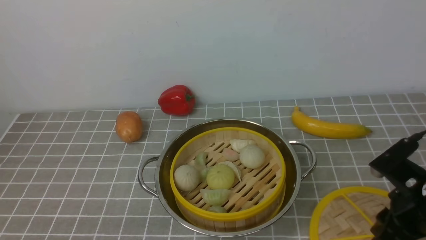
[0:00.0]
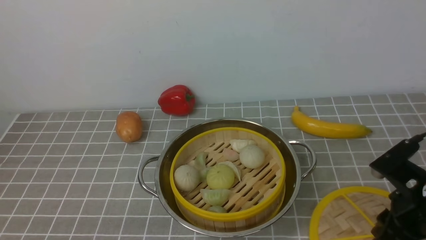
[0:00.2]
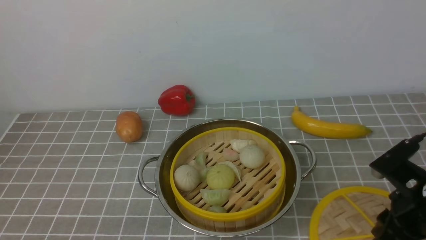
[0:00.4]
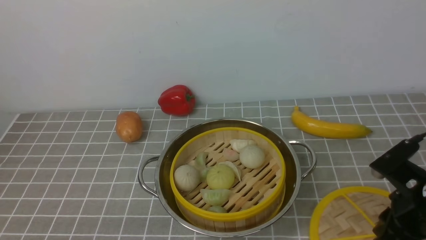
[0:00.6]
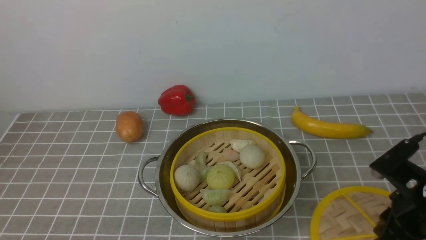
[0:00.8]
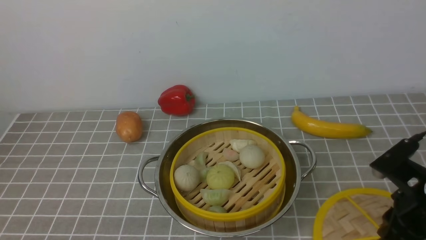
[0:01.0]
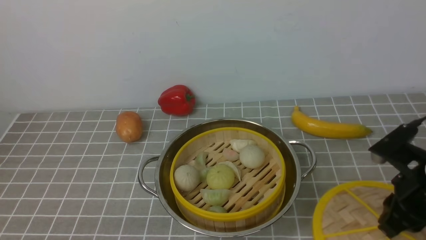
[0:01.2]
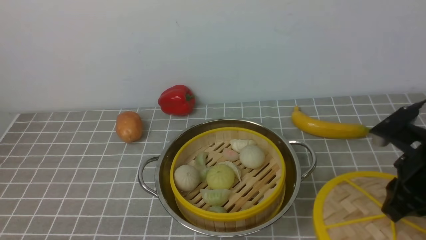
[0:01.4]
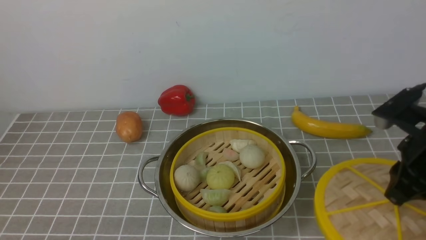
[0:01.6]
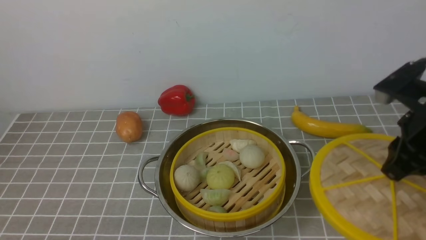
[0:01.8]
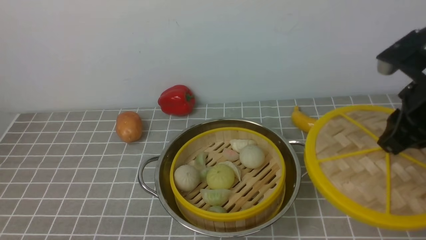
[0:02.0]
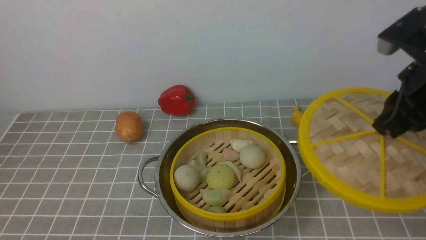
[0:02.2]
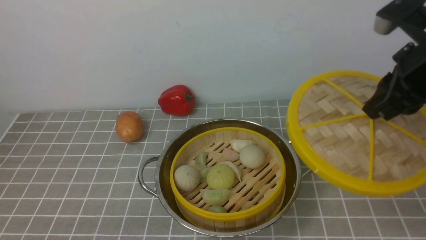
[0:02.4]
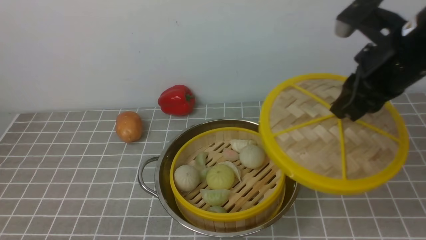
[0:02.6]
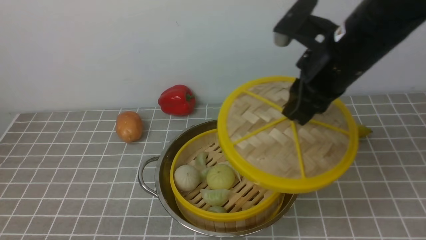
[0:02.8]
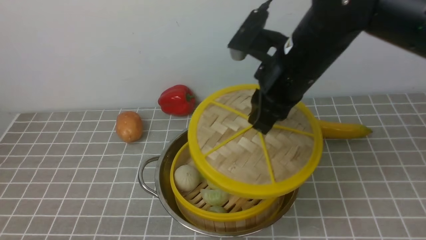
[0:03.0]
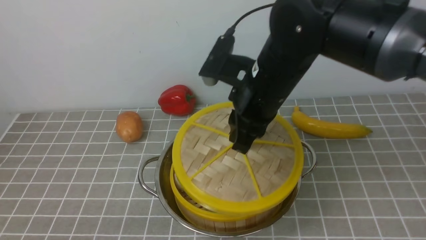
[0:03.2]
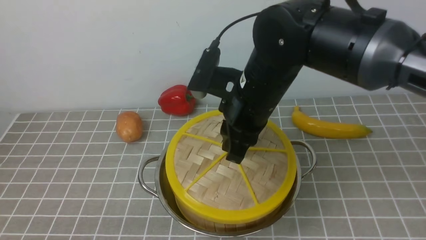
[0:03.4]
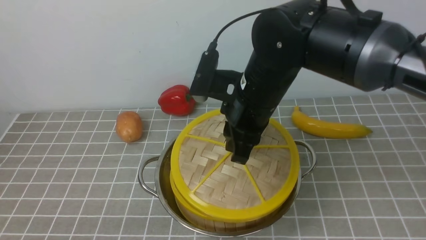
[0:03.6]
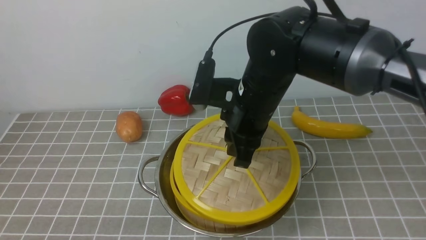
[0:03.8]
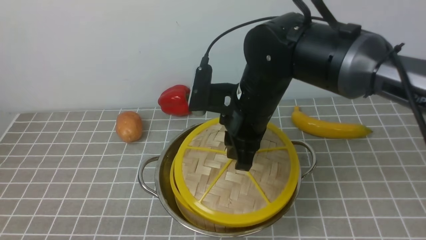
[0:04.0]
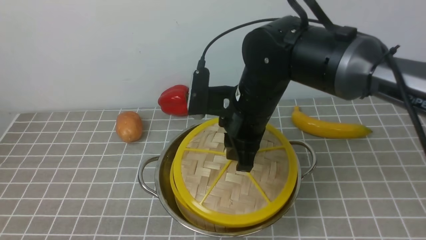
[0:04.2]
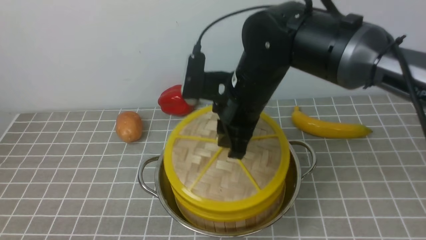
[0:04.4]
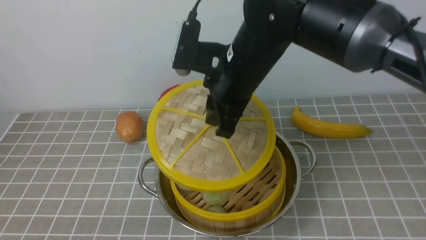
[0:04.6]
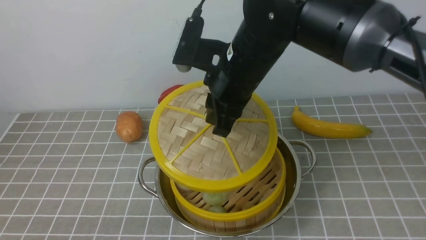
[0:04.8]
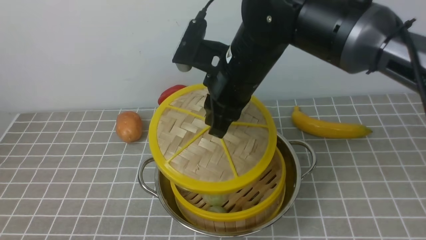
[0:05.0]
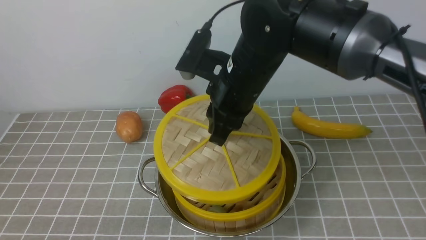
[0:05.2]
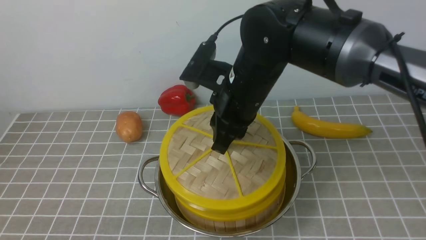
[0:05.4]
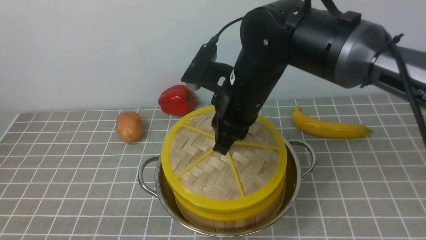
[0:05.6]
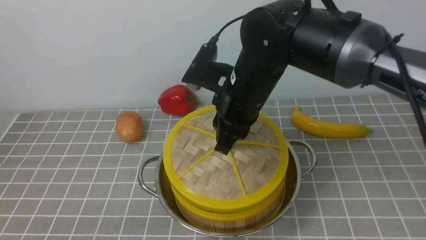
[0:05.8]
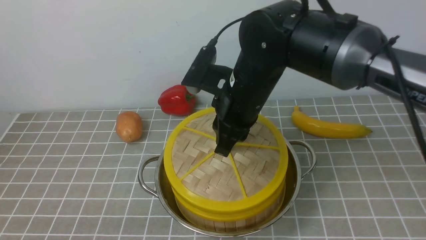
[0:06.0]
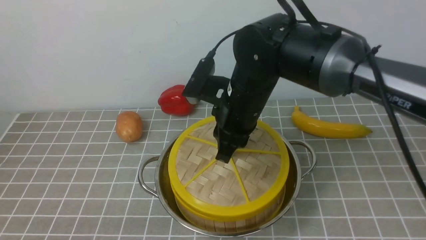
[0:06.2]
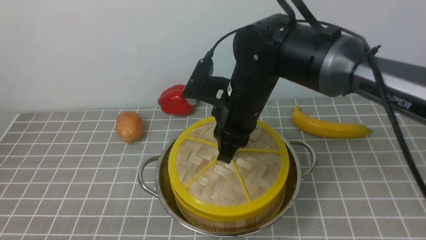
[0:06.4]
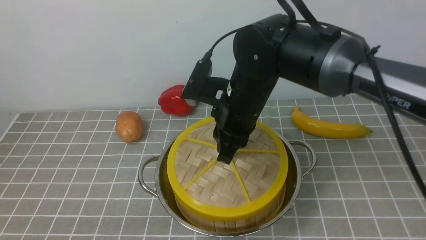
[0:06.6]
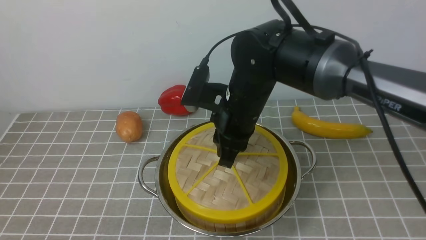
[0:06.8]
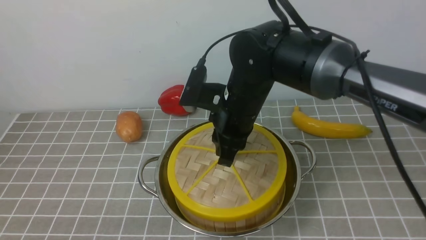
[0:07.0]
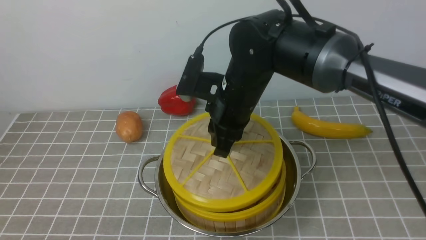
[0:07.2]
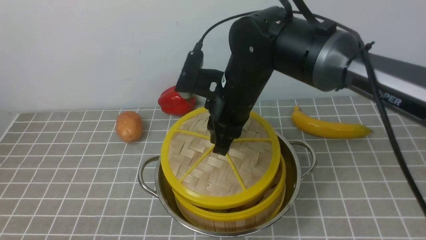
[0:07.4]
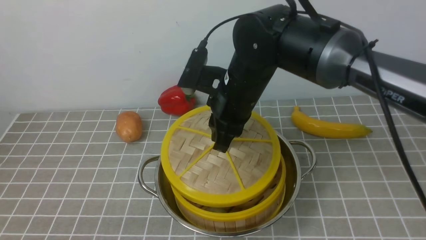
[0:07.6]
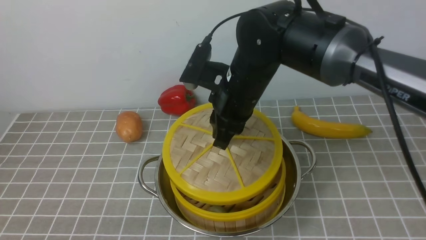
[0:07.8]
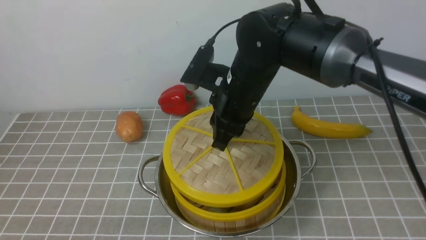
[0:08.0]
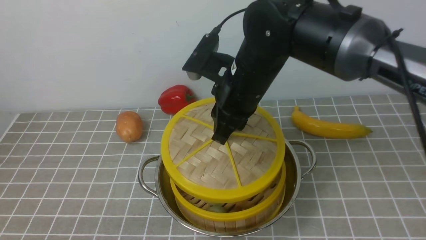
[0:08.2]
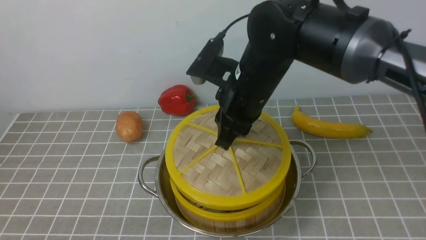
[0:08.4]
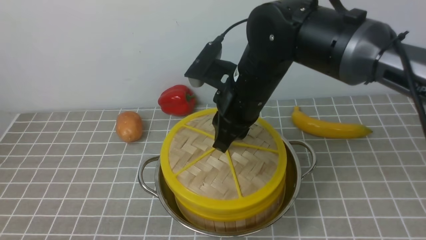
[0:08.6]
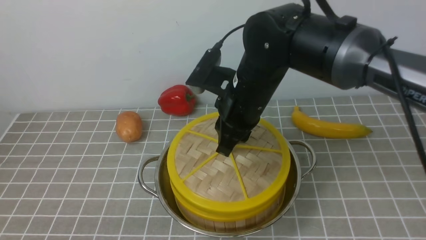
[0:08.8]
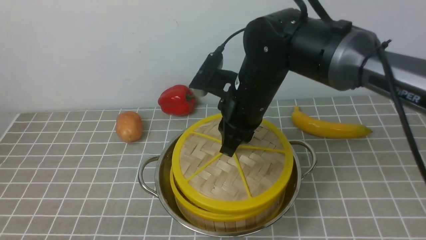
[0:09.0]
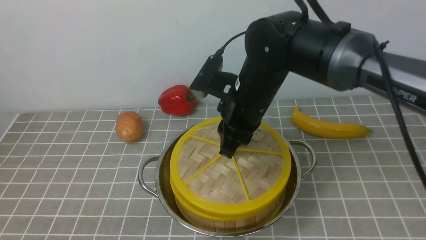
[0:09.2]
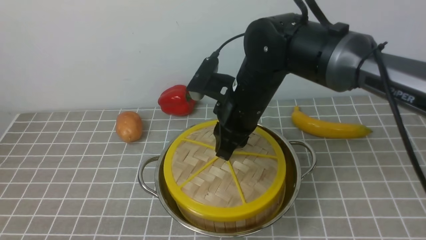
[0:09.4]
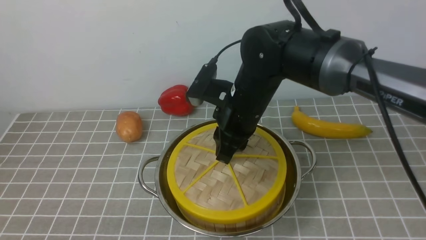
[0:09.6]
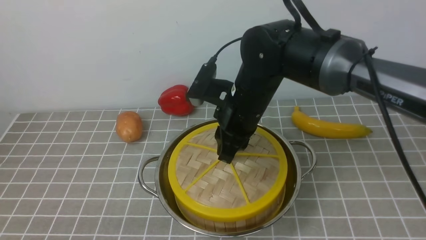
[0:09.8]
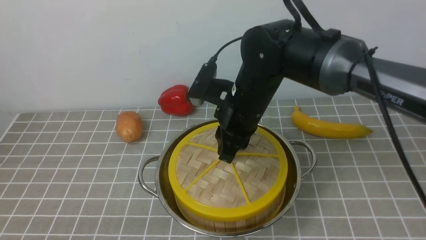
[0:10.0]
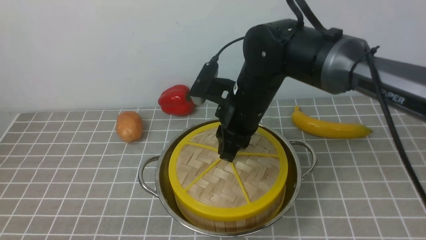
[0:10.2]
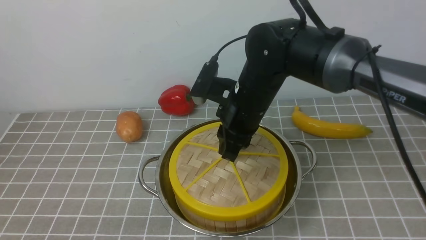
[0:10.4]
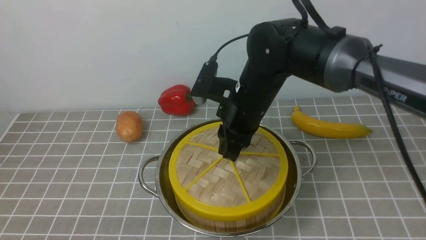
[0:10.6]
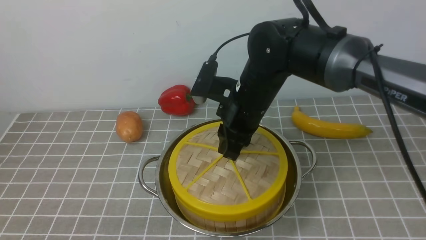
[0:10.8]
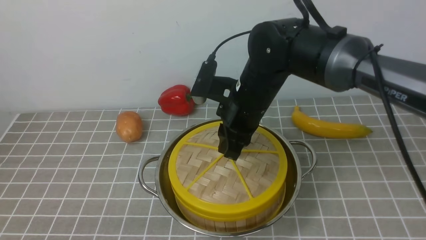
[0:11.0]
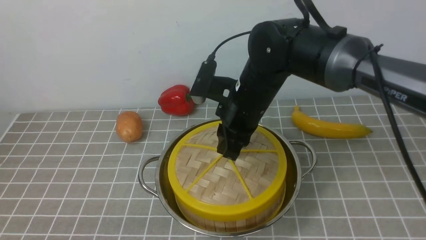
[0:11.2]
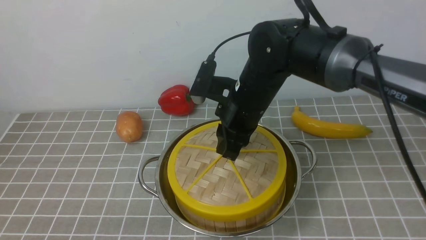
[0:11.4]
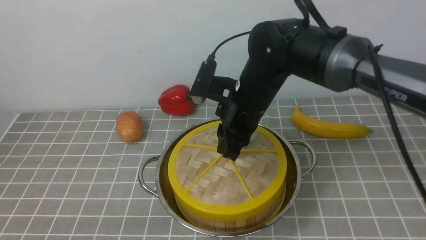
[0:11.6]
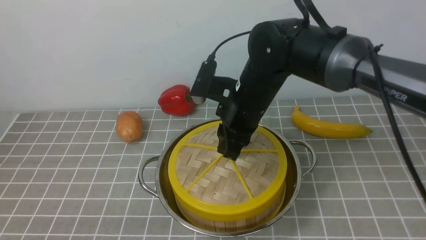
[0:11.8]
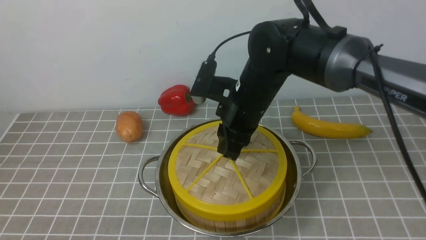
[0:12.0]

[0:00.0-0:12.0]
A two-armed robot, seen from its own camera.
Task of the whole recording: place the steamer in the pot on the grey tablecloth, and put the lid on the steamer.
0:00.0 to 0:01.6: The right gripper moves upward, roughly 10 cm, and closes.
0:01.6 to 0:03.0: The right gripper travels to the left and forward by approximately 20 cm.
0:03.0 to 0:04.4: The right gripper is displaced to the left by some 5 cm.
0:04.4 to 0:10.4: There are only small adjustments of the grippers.
0:10.4 to 0:12.0: Both grippers stay put.

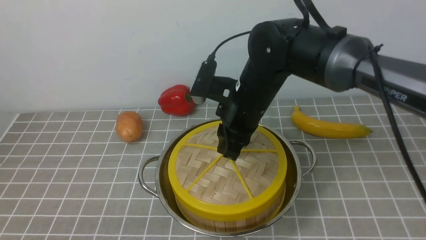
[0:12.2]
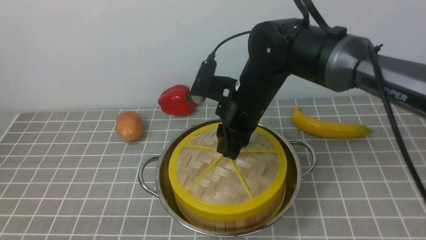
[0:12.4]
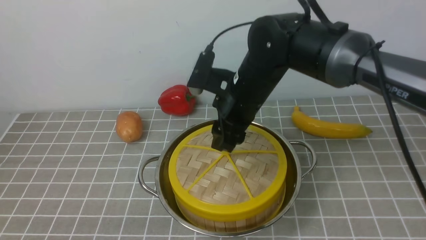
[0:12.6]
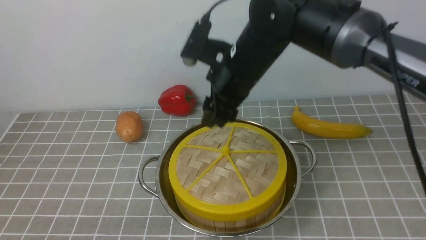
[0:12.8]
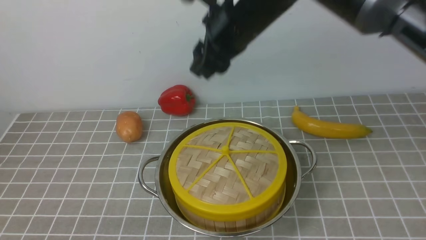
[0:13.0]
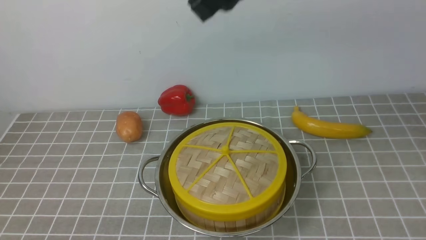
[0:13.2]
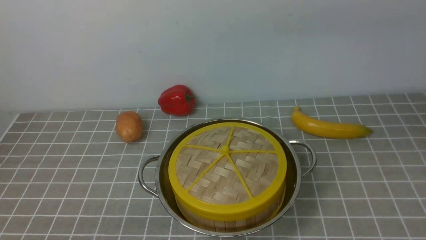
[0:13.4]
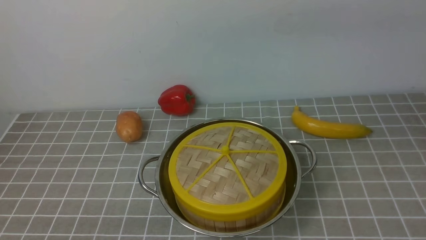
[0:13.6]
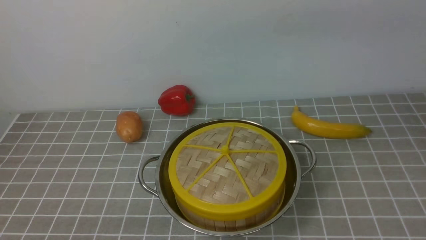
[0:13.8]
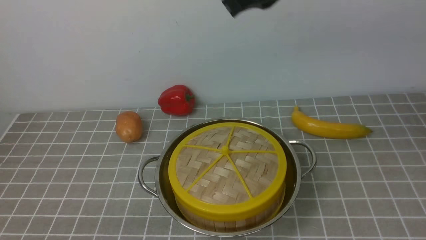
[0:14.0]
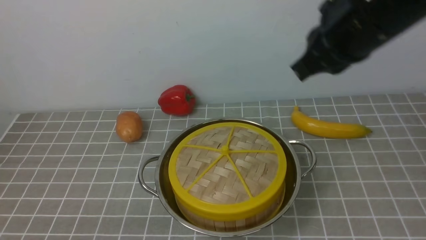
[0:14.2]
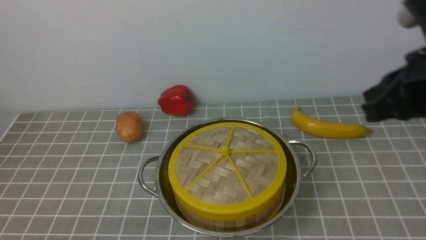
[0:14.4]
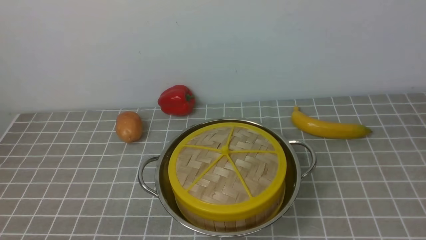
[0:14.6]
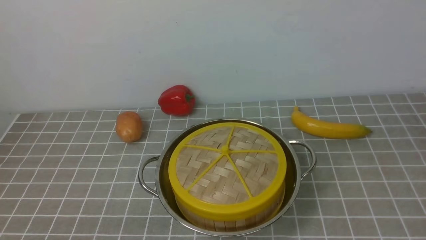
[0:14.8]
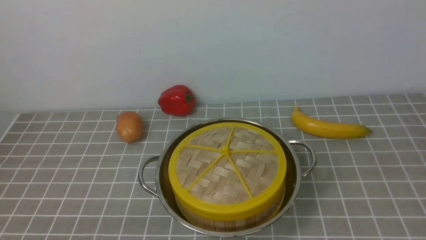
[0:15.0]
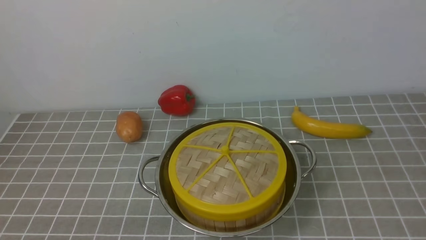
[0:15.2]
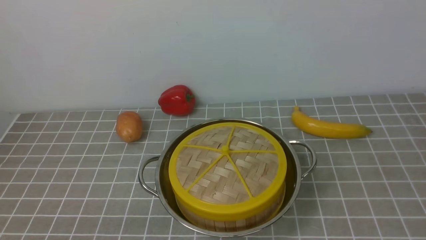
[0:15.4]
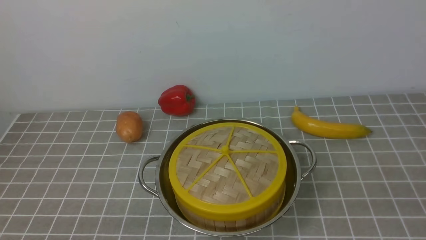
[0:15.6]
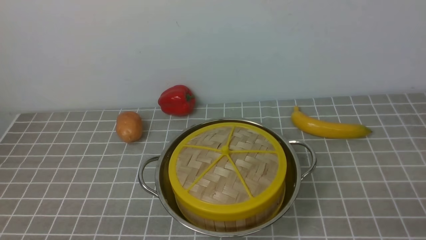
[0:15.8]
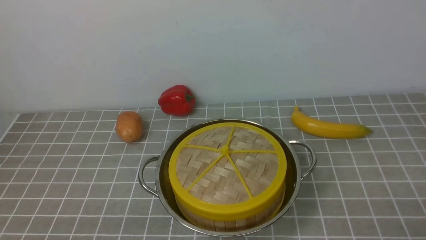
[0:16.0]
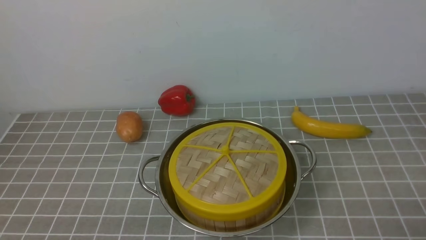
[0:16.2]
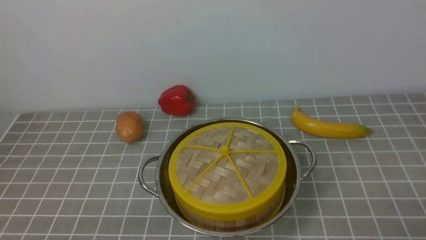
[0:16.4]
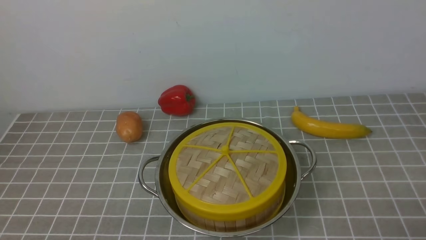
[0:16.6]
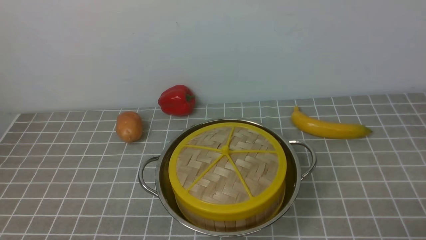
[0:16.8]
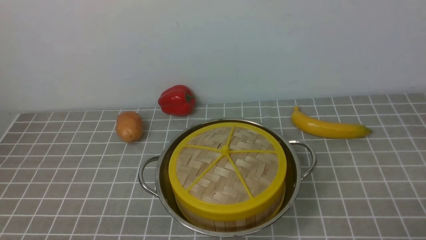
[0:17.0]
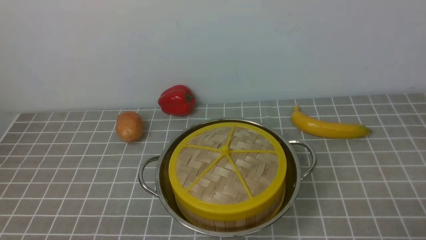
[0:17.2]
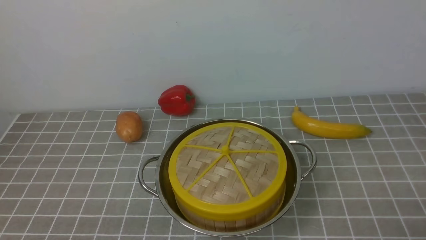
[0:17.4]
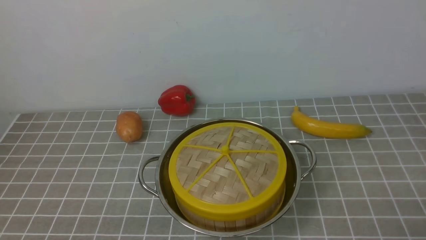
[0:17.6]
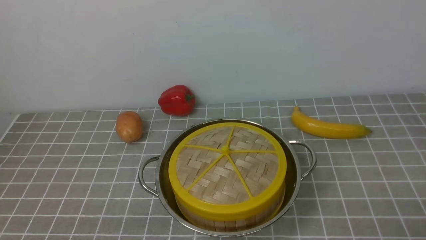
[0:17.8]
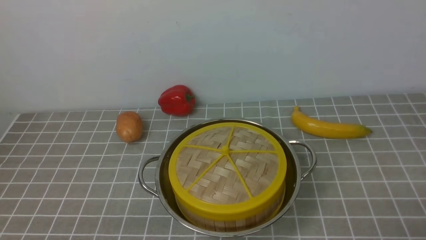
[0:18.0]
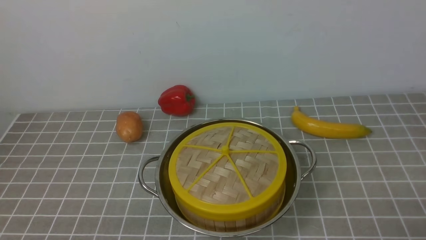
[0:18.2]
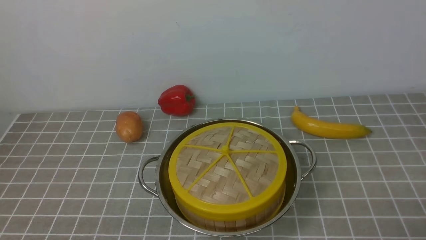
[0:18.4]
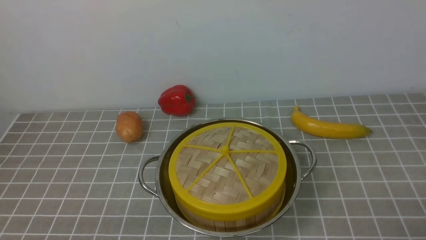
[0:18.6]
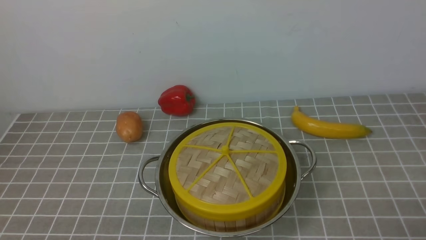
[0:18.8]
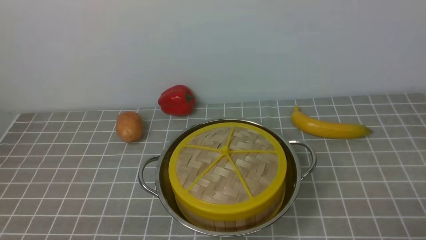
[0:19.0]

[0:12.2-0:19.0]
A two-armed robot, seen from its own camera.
Task of the whole recording: place the steamer in the pot on the grey tablecloth, and put the lid on the steamer.
0:12.2 to 0:13.6: The right gripper is displaced upward by about 25 cm, and closes.
0:13.6 to 0:15.0: The right gripper moves to the right, backward and downward, some 40 cm.
0:16.2 to 0:19.0: Both grippers stay put.
